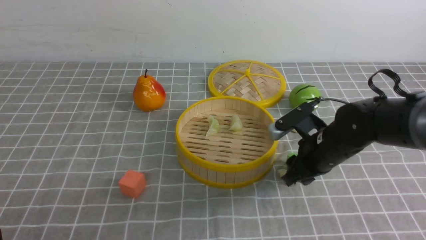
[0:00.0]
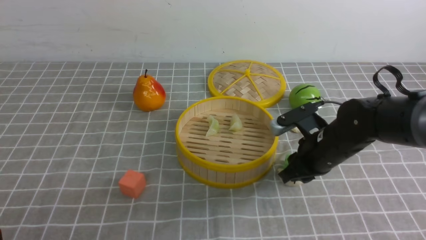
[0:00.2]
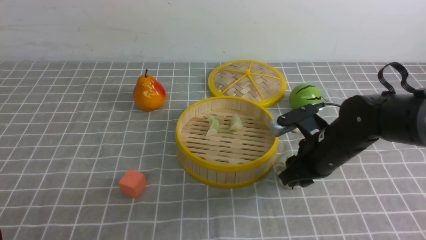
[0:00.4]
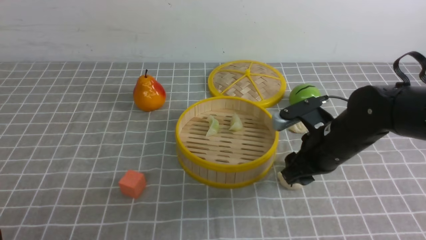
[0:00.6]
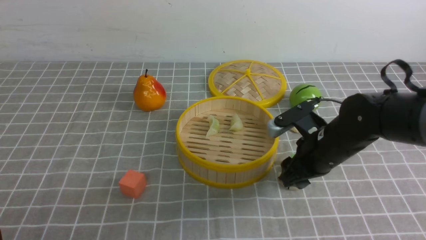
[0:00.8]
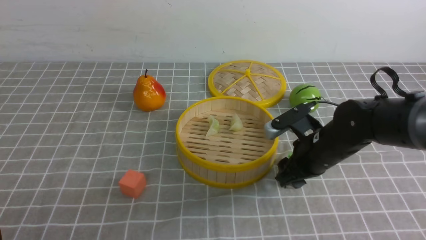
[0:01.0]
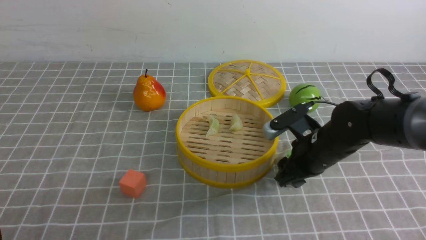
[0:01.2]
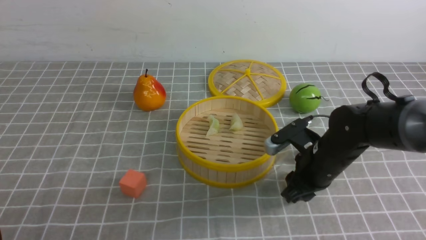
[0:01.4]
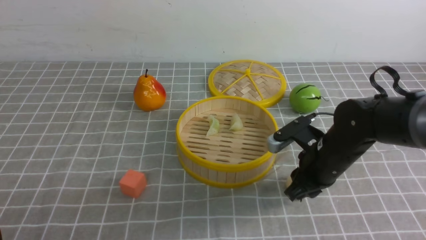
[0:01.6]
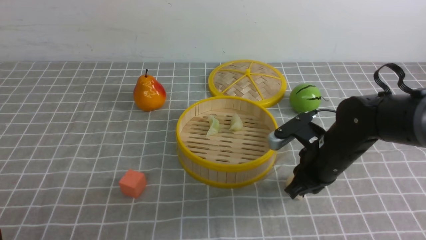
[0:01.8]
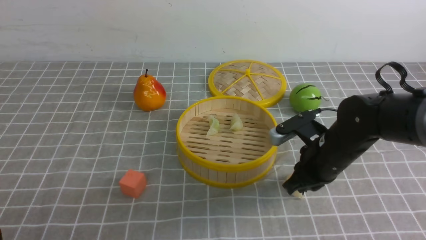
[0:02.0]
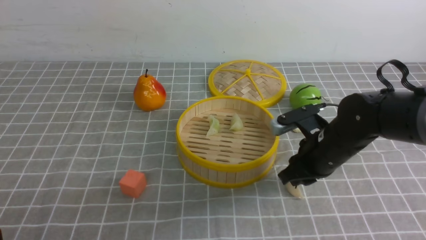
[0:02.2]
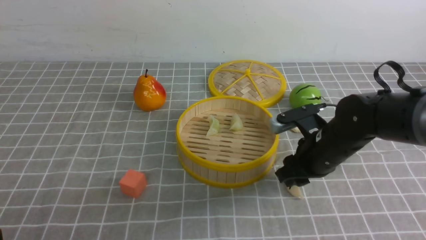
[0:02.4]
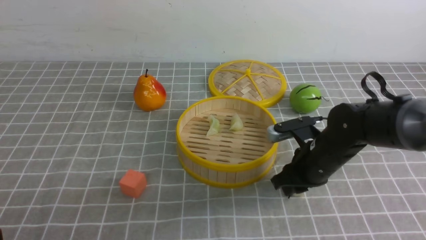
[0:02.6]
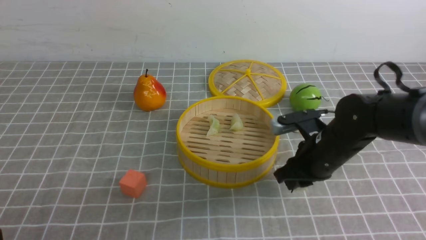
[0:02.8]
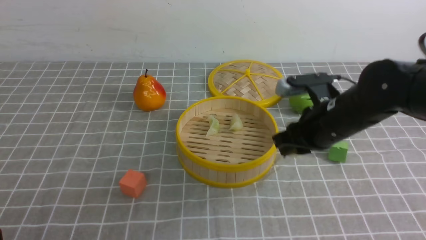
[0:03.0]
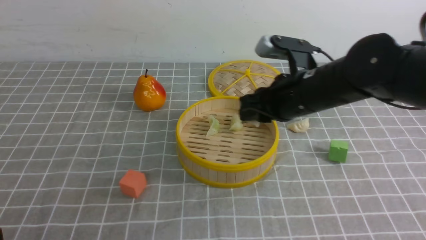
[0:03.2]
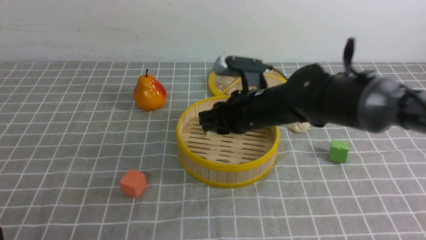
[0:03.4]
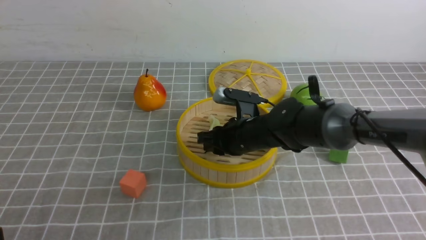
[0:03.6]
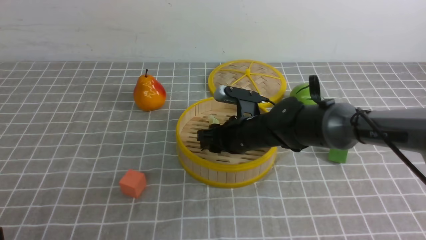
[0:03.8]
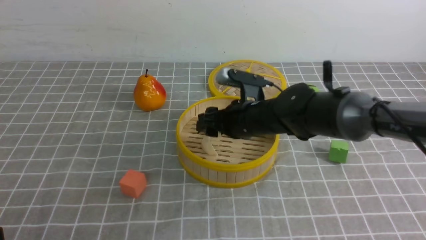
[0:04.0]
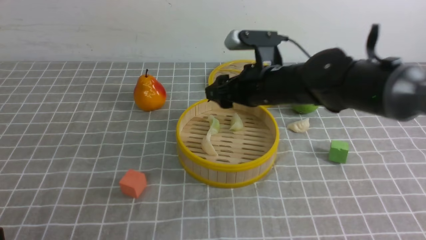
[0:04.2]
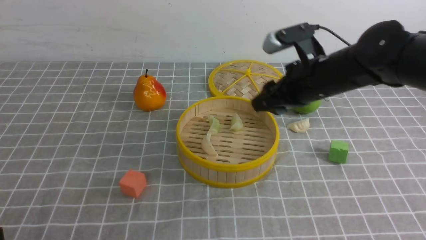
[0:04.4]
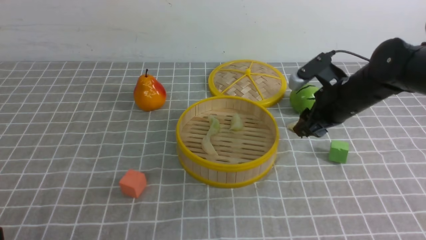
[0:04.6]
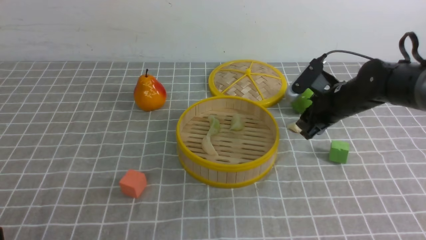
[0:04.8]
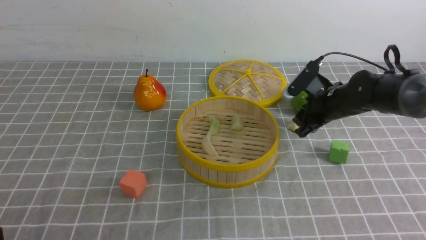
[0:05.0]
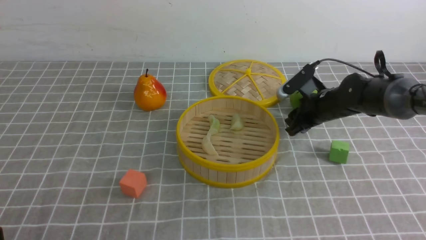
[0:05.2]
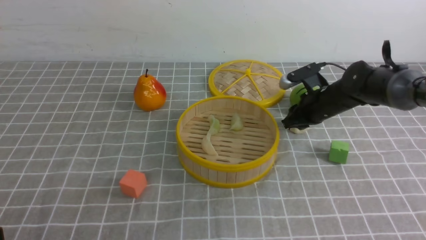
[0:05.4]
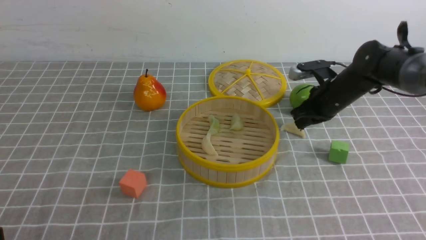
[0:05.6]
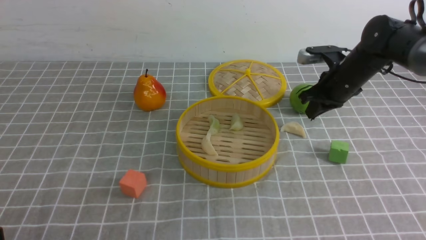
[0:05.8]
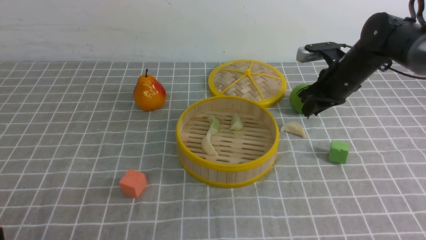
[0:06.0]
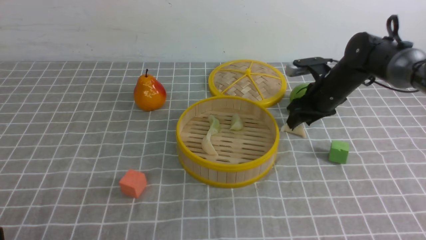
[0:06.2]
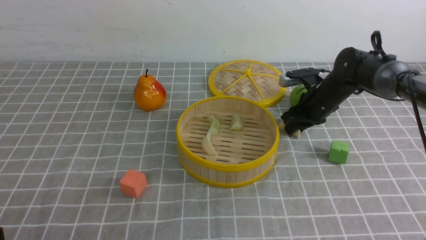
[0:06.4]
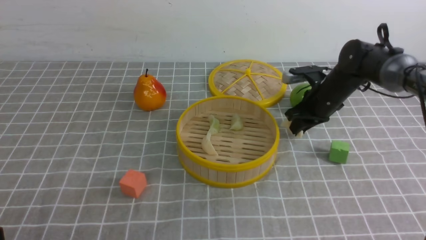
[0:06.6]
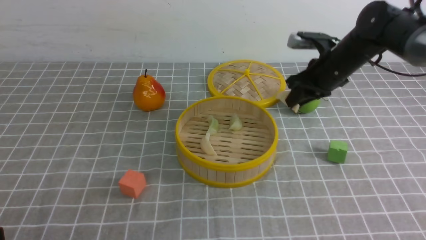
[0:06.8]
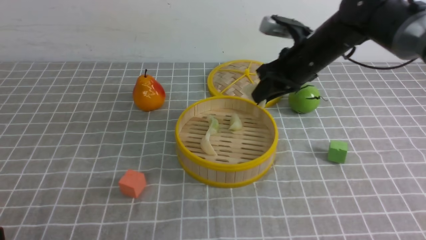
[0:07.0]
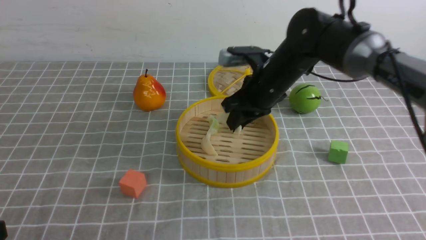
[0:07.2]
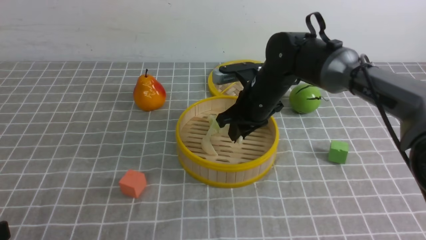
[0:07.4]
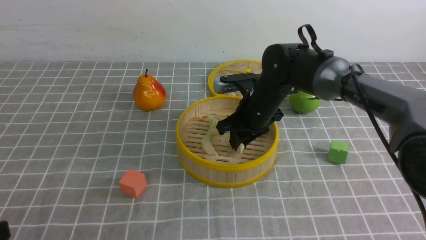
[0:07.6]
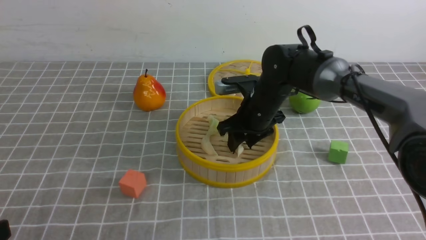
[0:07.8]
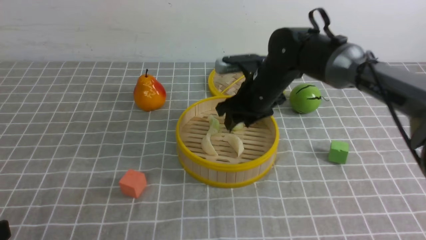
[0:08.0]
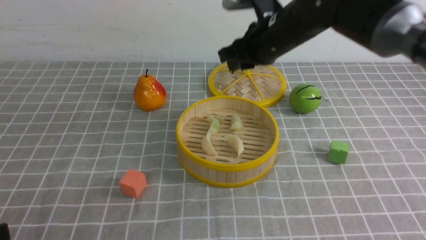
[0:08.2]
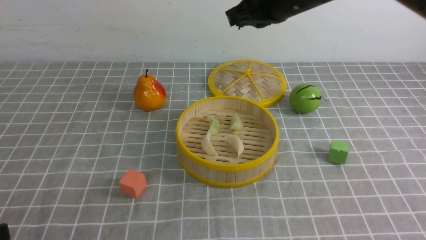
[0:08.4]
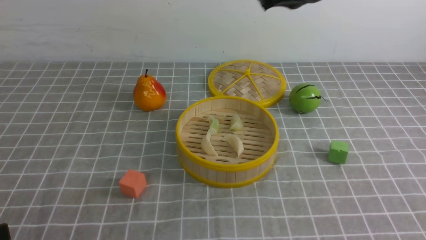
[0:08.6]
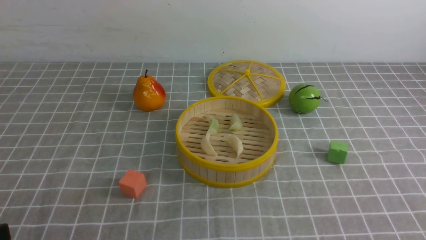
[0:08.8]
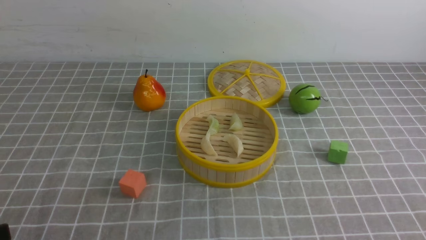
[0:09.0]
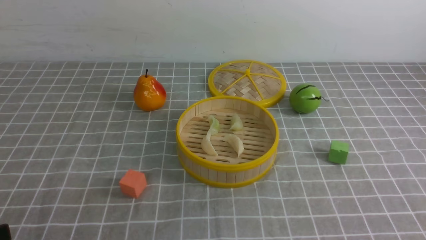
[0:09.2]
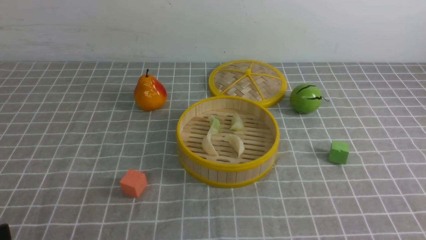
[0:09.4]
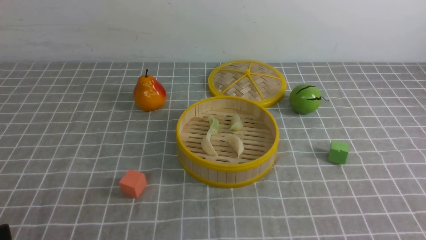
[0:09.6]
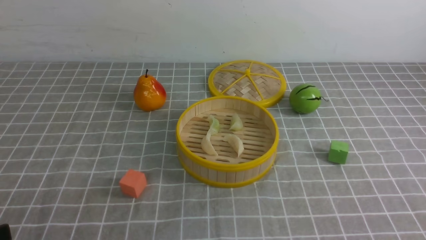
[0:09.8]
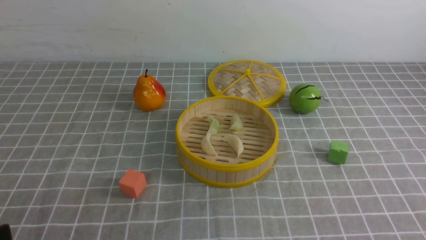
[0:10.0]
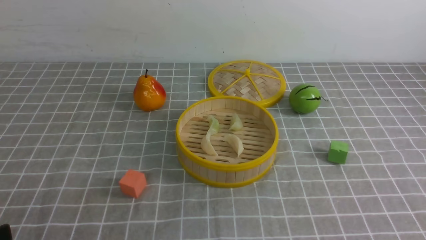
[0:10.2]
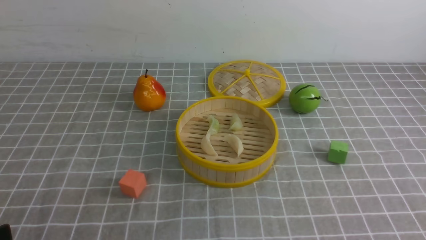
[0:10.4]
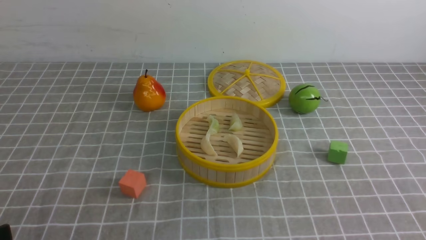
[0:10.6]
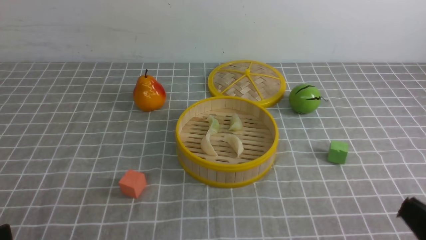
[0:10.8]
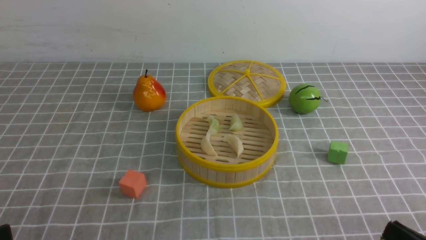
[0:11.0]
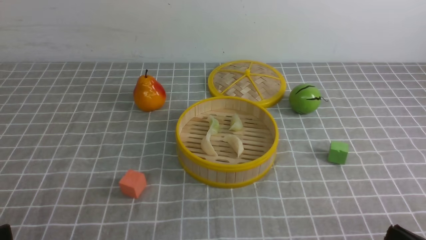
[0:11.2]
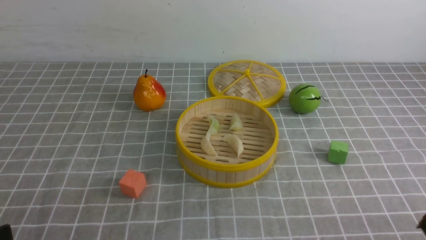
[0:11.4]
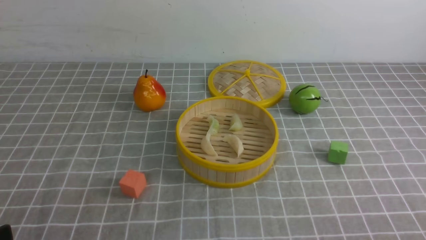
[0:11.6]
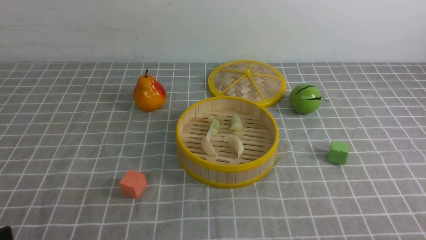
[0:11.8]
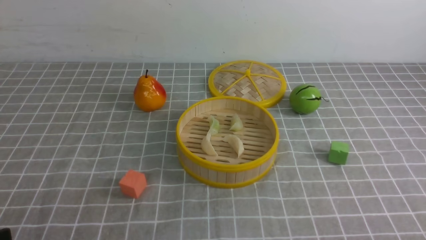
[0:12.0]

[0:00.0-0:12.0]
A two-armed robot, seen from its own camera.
Task of the whole recording: put the dumplings into the steamer on the table with the grey tablecloth.
Step, 0:00.0 to 0:02.8: use the right arm to grab a dumpling.
Step, 0:03.0 to 0:04.0: use the right arm to put the dumpling into the steamer.
Step, 0:04.2 to 0:06.6: use the right arm to grab a dumpling.
Step, 0:06.8 to 0:08.0: use the right arm to put the dumpling into the steamer.
0:00.0 to 0:01.6: There are only small adjustments of the grippers.
0:01.6 to 0:03.0: The right gripper goes some 5 cm upward.
0:03.0 to 0:04.4: The right gripper shifts some 5 cm forward, travels to the left and back again, some 10 cm each way, and opens its fingers.
0:04.4 to 0:06.0: The right gripper shifts approximately 10 cm forward and to the right, and closes up.
0:06.0 to 0:07.6: The right gripper heads to the left, covering some 15 cm.
0:07.6 to 0:09.0: The right gripper is displaced upward and backward by roughly 35 cm, and closes up.

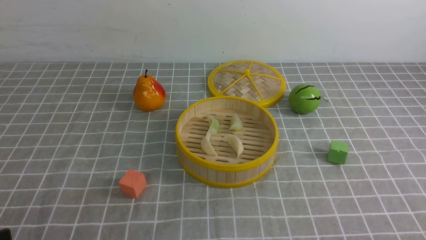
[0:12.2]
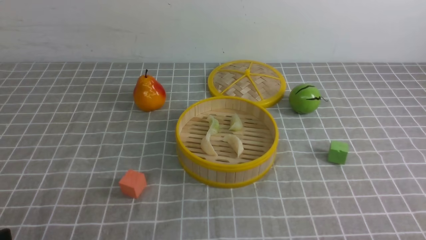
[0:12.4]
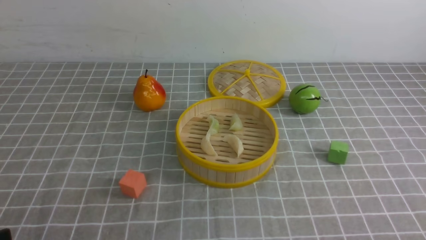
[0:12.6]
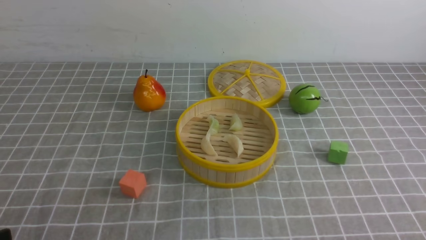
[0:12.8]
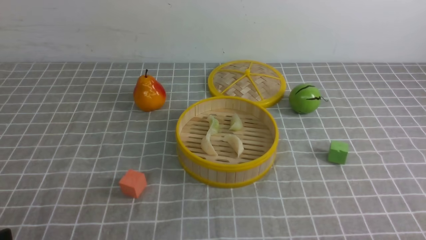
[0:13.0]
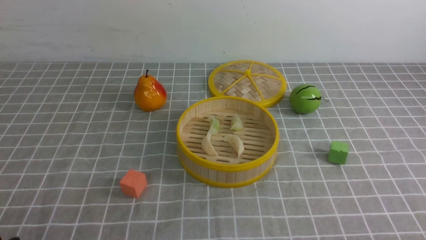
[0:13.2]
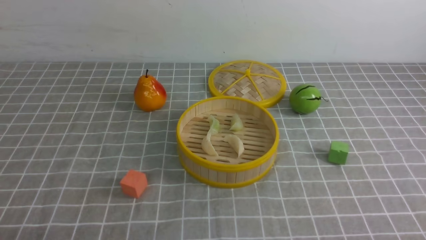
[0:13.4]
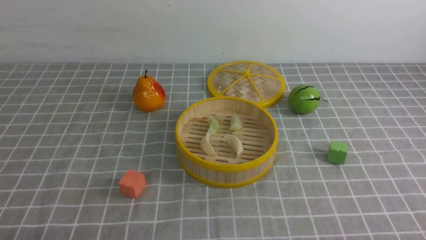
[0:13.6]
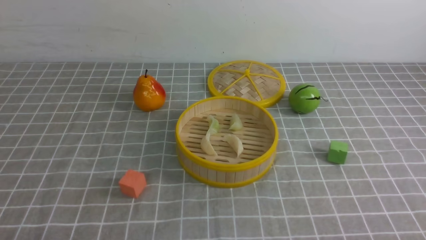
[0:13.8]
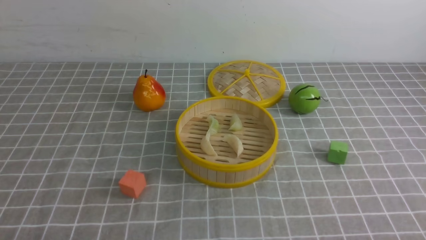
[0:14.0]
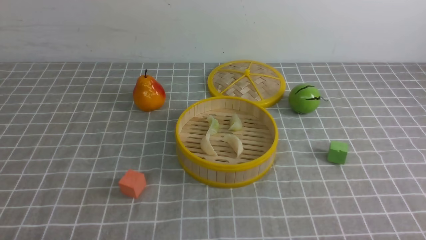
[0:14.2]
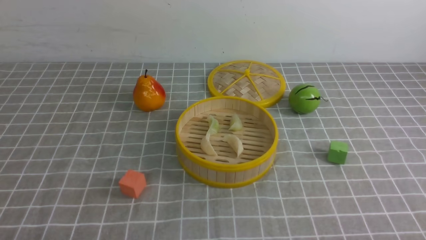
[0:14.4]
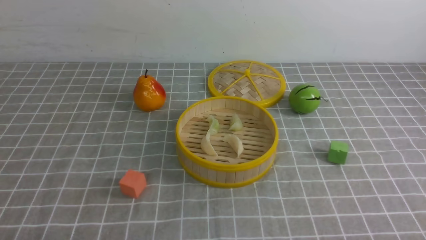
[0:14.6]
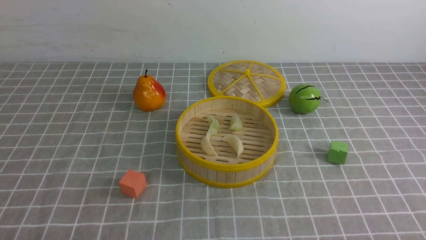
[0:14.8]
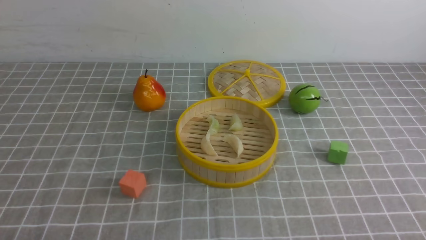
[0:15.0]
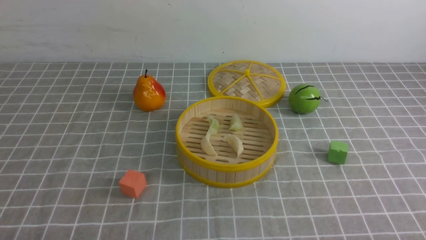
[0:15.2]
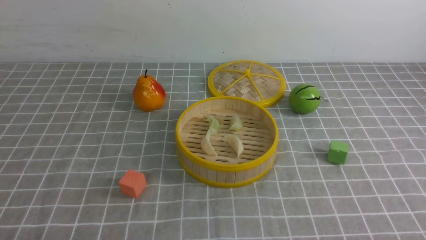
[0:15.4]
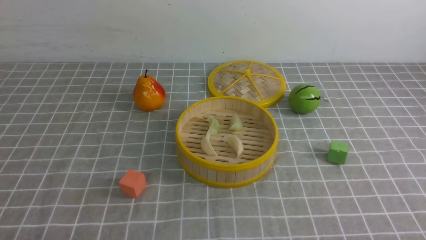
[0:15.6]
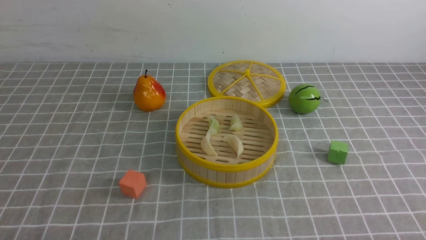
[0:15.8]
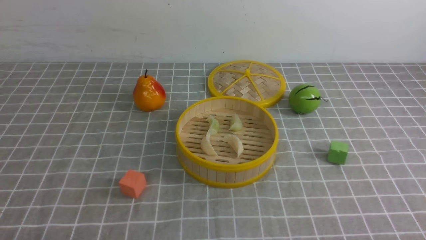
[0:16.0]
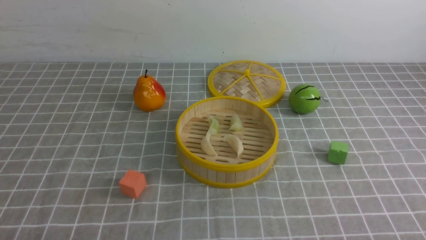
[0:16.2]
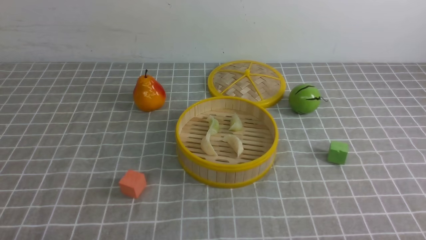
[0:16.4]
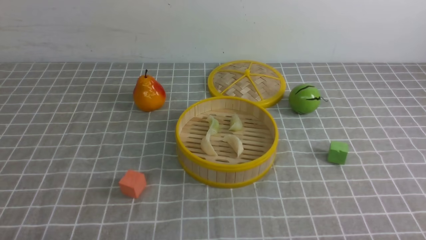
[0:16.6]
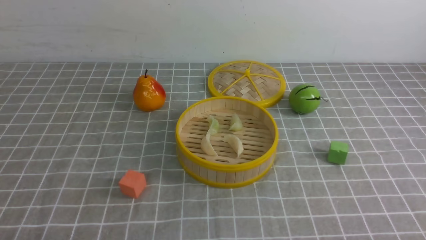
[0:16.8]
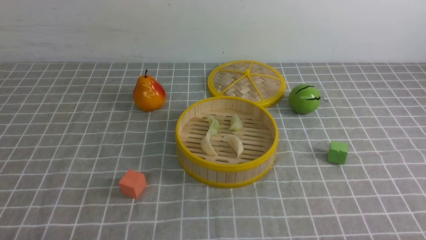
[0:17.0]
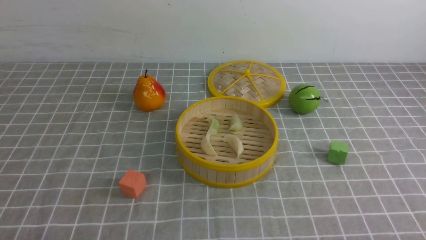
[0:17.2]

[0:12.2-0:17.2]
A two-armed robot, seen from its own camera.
Task of the whole recording: put the dumplings into the steamer on the table with the grey tablecloth.
0:15.6 to 0:17.2: Both grippers stay about where they are.
